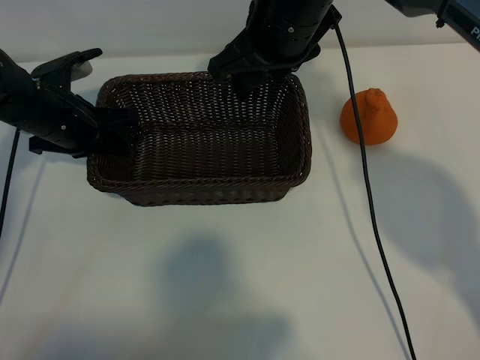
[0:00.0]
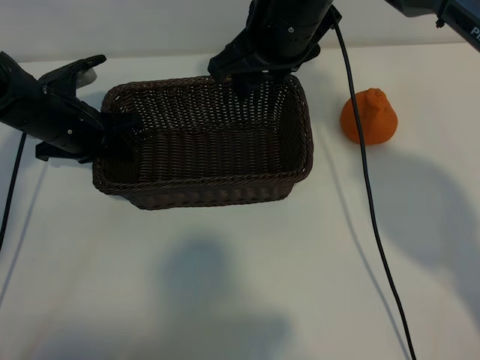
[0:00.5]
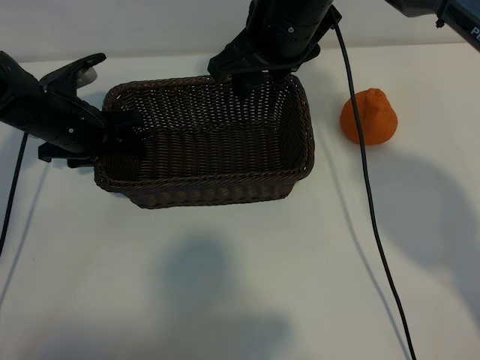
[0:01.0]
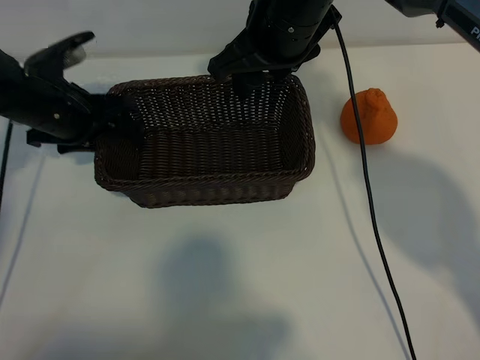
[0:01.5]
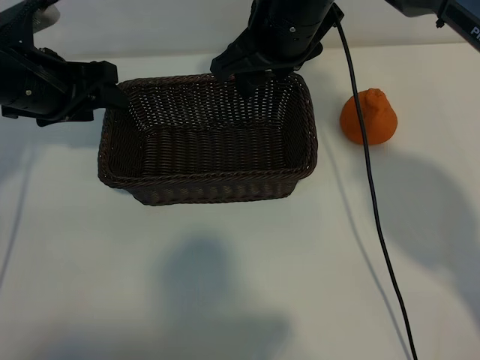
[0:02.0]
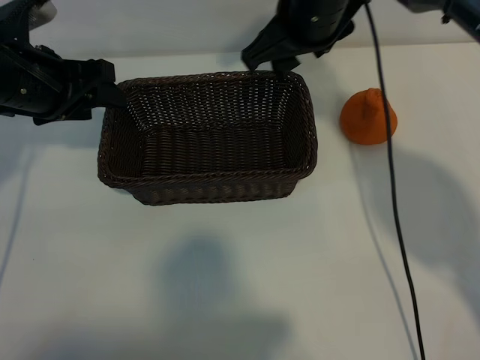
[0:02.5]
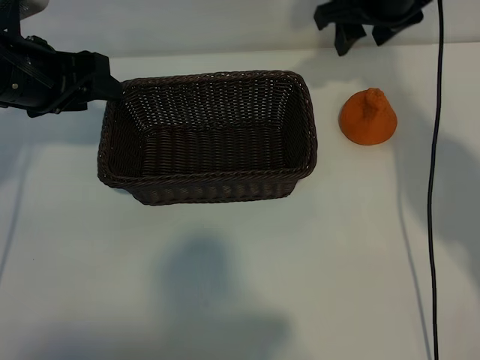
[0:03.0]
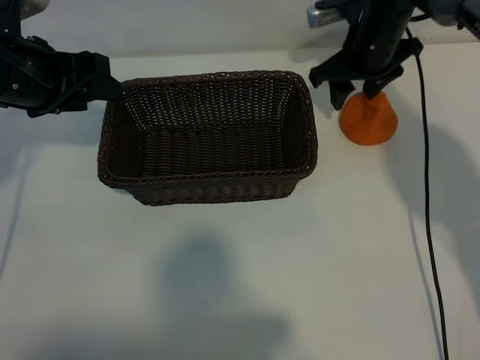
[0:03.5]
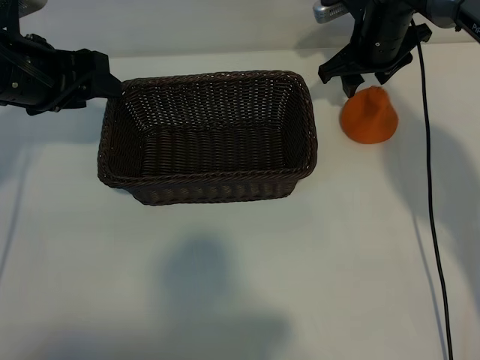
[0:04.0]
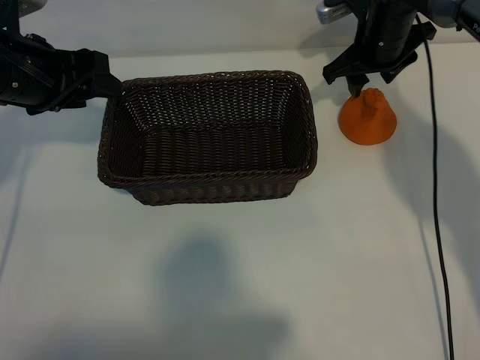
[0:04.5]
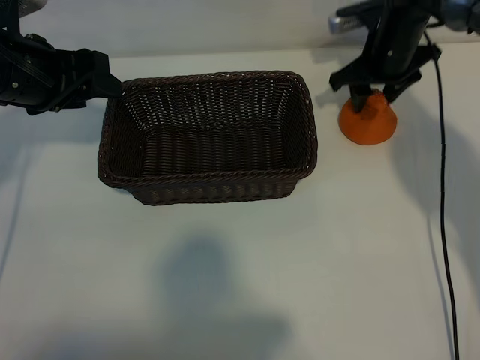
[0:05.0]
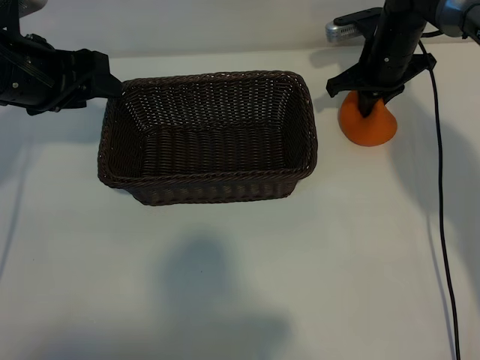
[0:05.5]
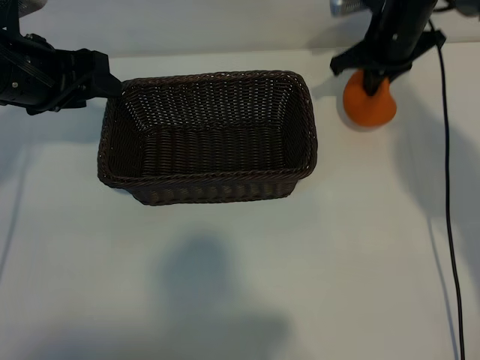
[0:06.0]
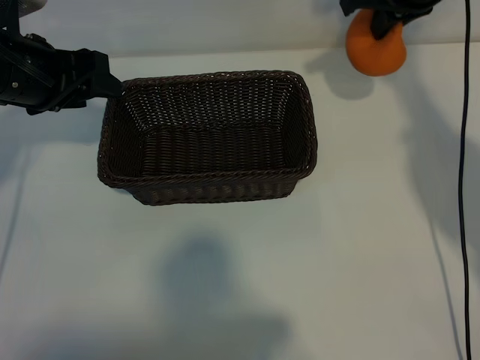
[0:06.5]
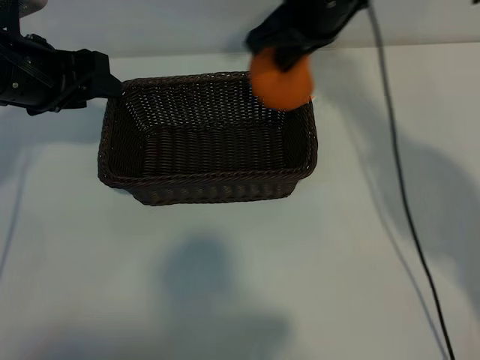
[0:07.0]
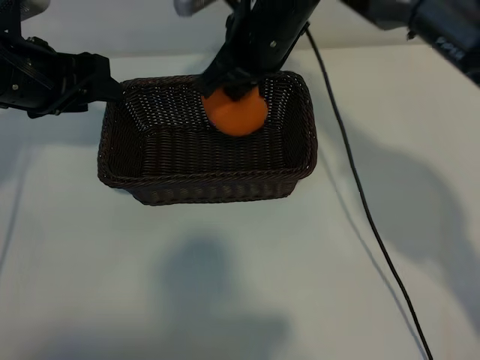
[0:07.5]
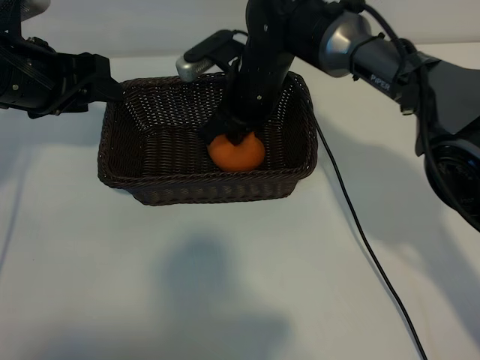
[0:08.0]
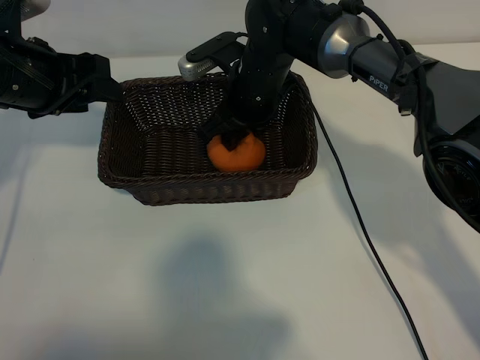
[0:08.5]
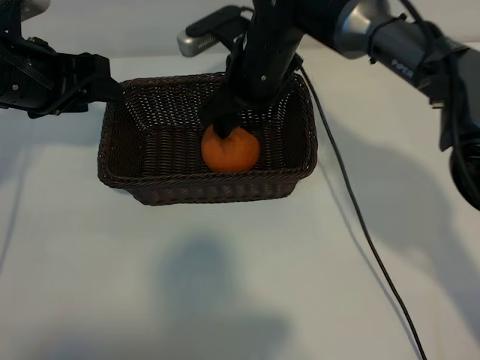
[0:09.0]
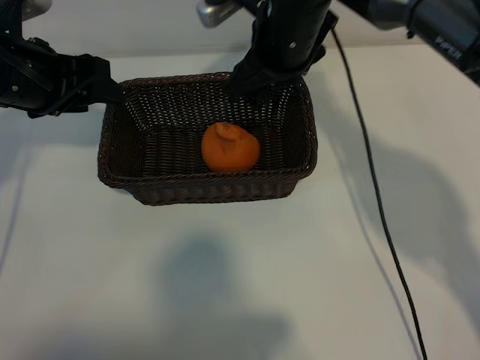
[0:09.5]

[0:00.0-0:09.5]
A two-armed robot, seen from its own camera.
Task of the whole recording: pick up the orange and put it into the basket.
Step, 0:01.0 to 0:05.5: Grasp the orange with right gripper.
Step, 0:06.0 to 0:08.5: Place the orange in the basket with right gripper.
